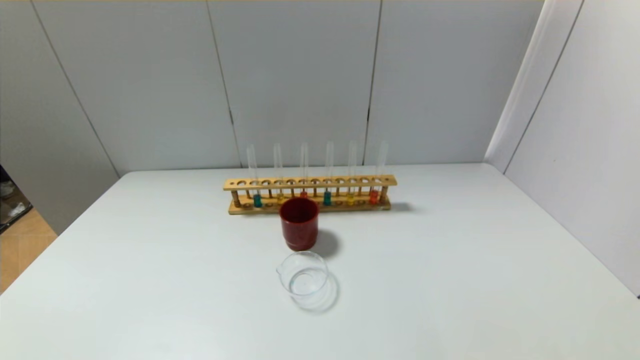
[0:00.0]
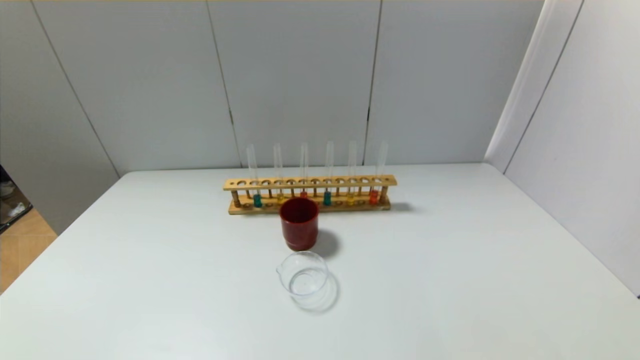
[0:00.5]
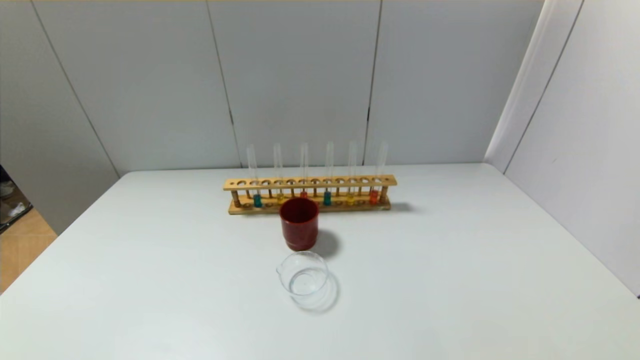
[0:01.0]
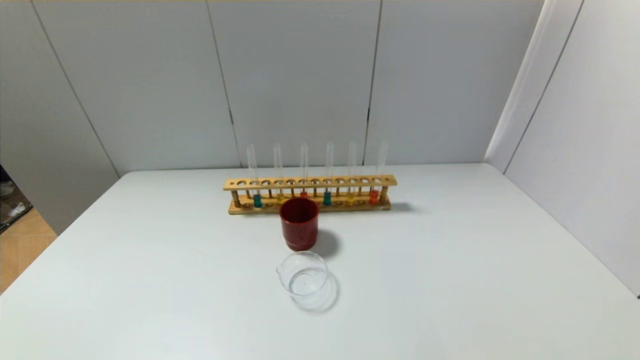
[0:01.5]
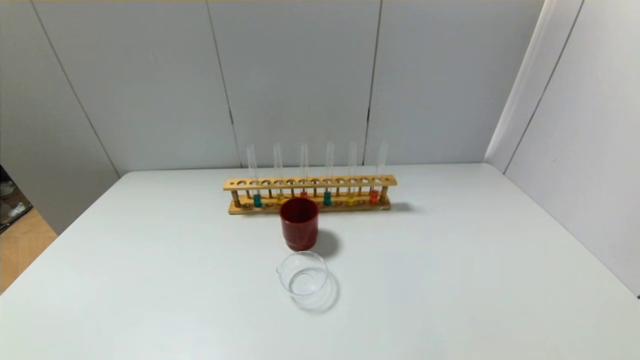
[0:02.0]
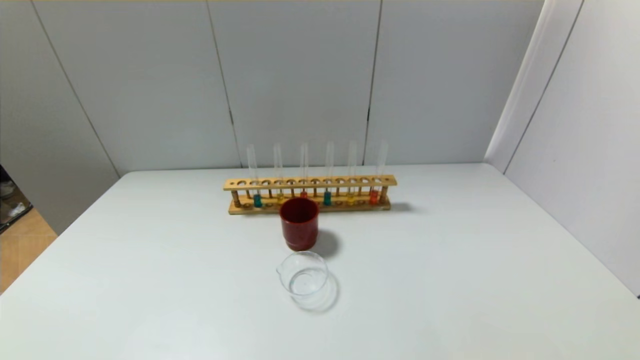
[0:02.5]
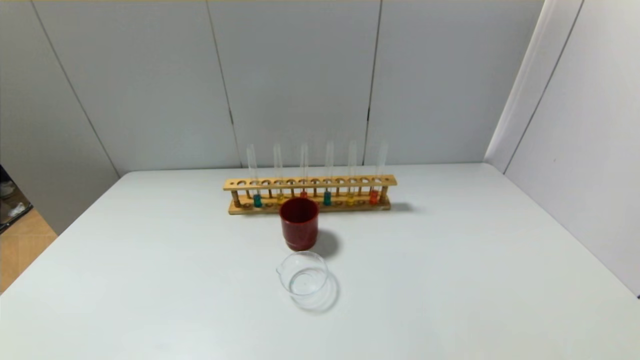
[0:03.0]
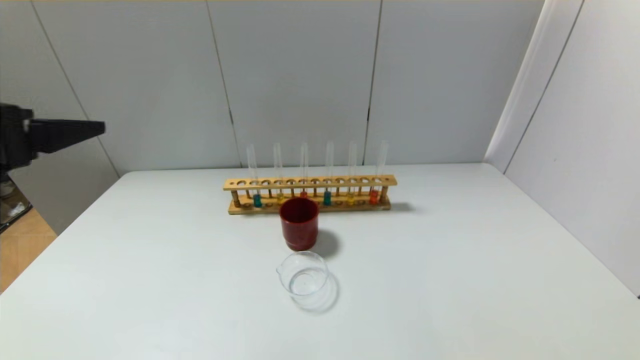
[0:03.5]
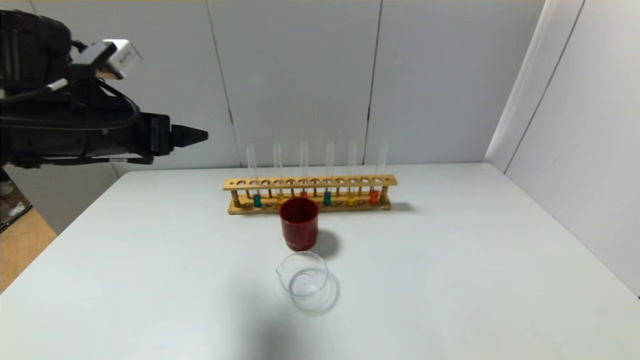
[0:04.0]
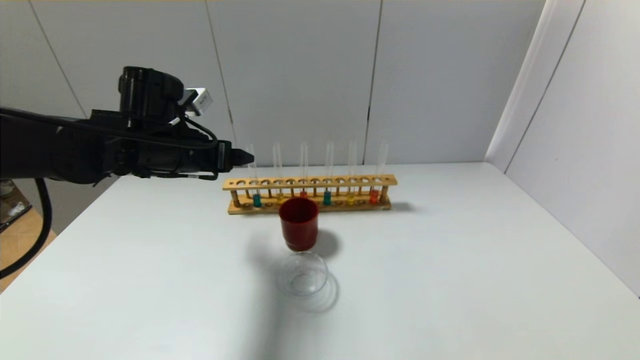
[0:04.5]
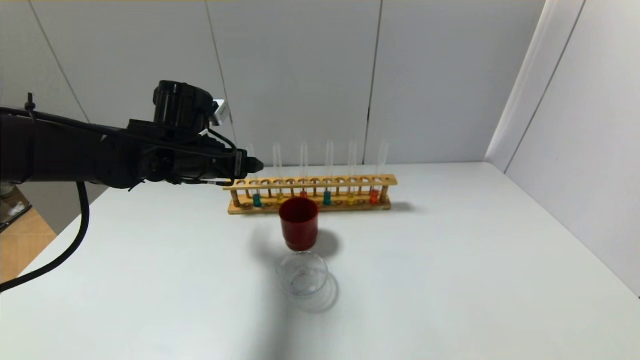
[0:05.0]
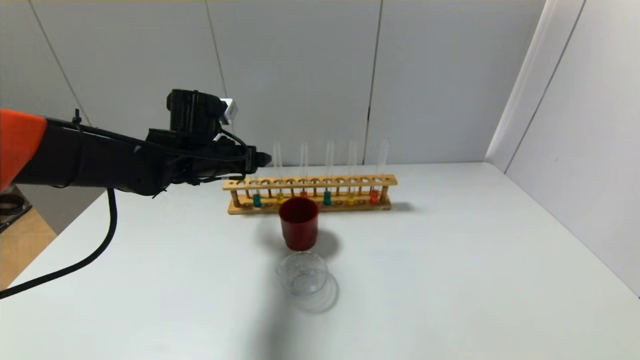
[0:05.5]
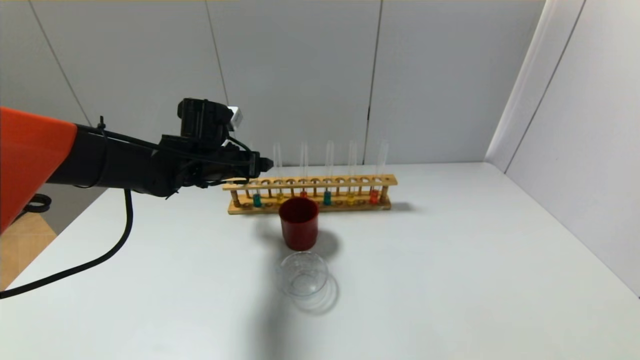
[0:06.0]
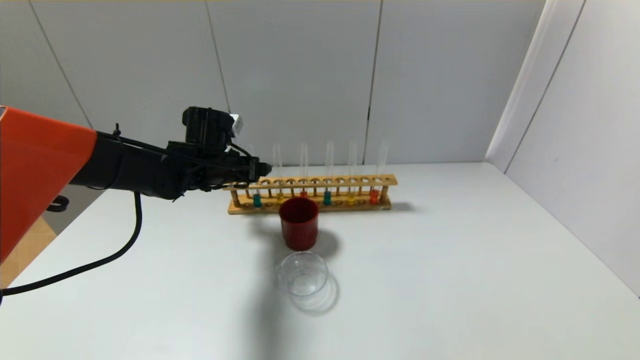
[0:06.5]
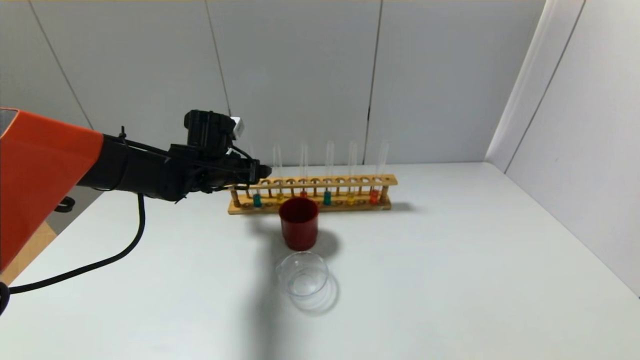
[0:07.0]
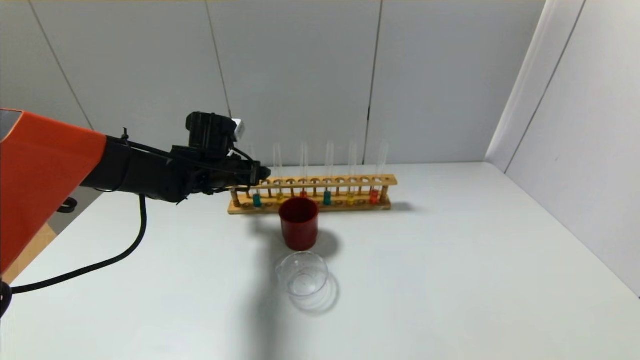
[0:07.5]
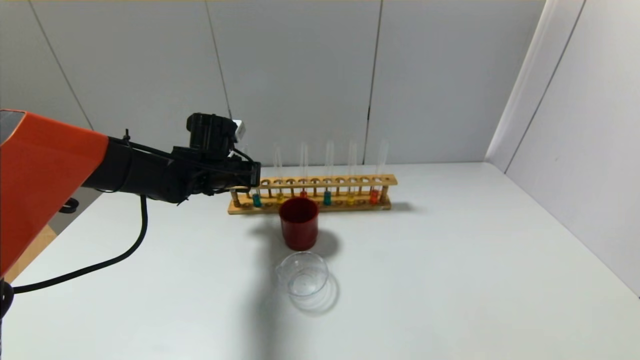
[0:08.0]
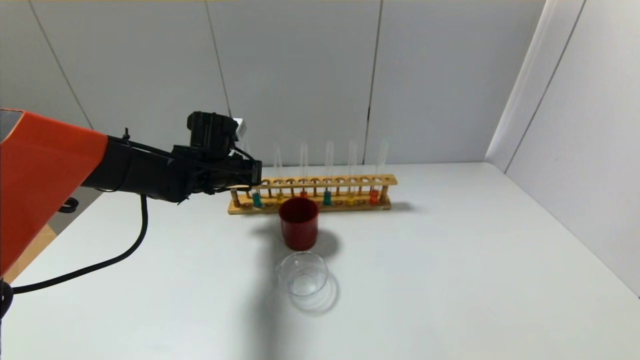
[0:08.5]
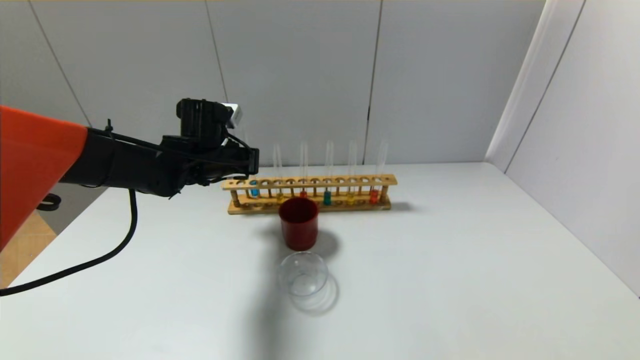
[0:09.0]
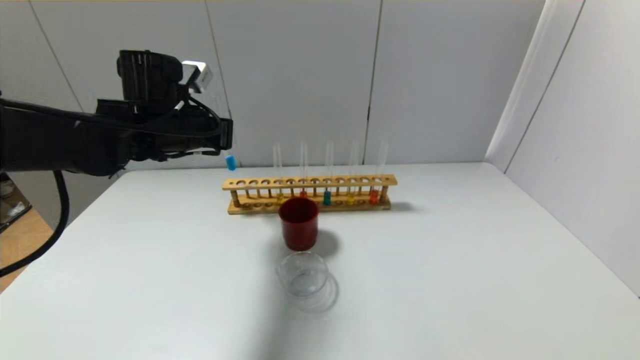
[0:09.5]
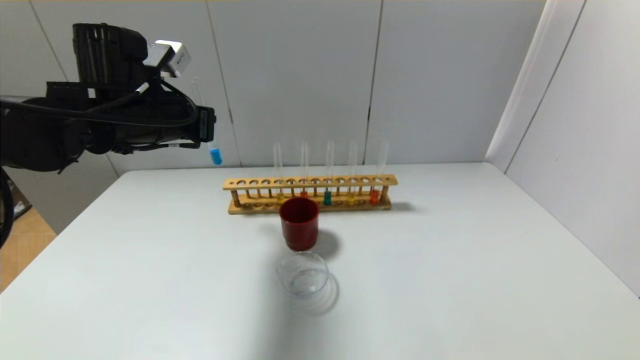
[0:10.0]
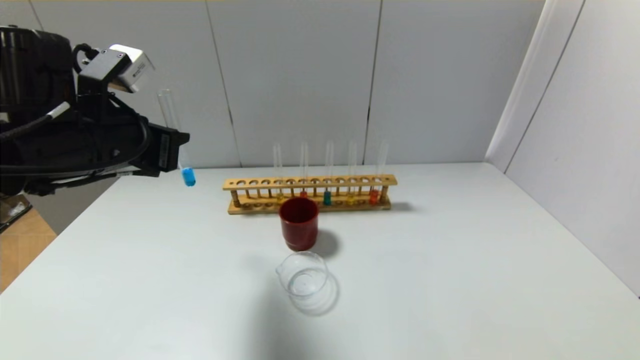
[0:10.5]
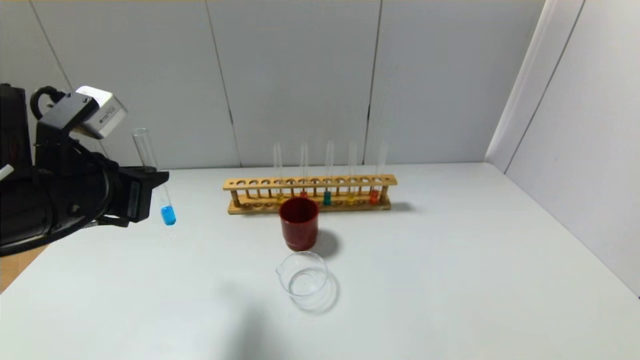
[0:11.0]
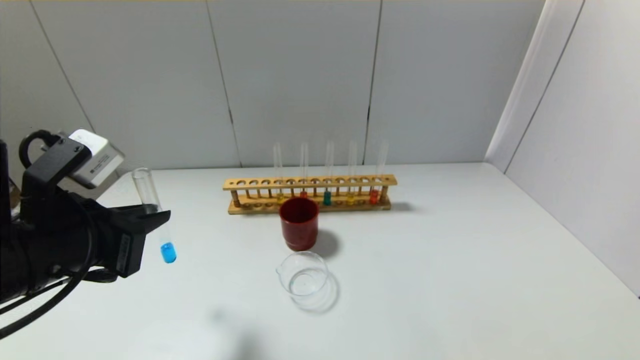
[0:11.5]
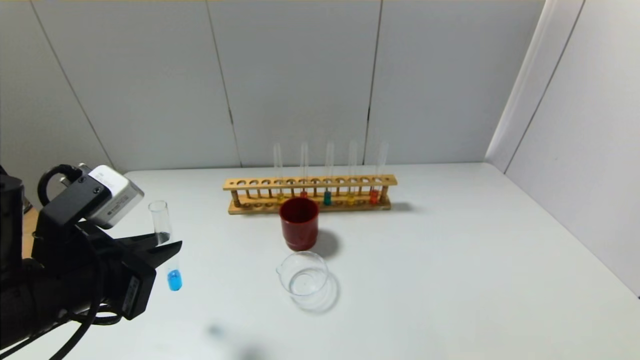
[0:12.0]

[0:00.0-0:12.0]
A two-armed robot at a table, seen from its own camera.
Step, 0:00.0 to 0:08.0: Grasp the blue reagent with the left gripper.
0:02.0 to 0:04.0: The left gripper goes about 35 cm forward and upward.
0:04.0 to 0:06.0: The left gripper shifts approximately 20 cm forward, downward and to the right.
0:06.0 to 0:08.0: The left gripper closes.
0:08.0 to 0:10.0: The left gripper travels upward and backward by some 15 cm.
0:10.0 to 0:12.0: The left gripper heads backward and downward, covering about 20 cm.

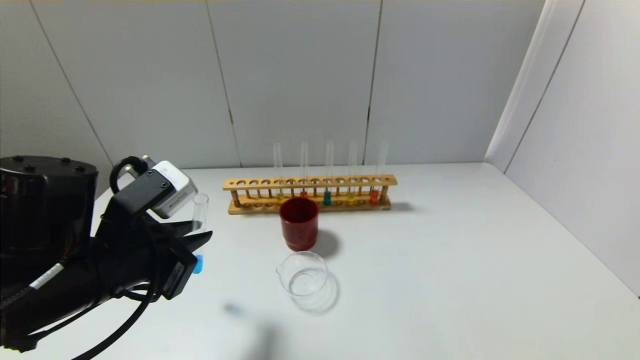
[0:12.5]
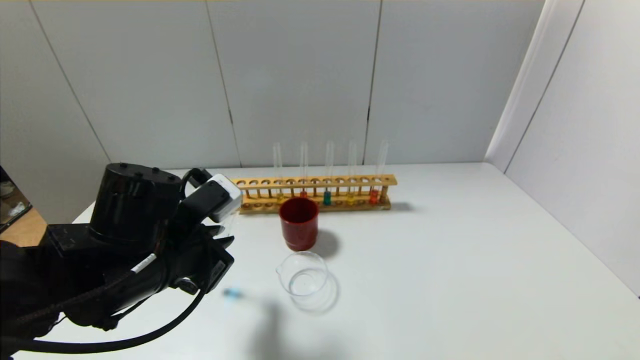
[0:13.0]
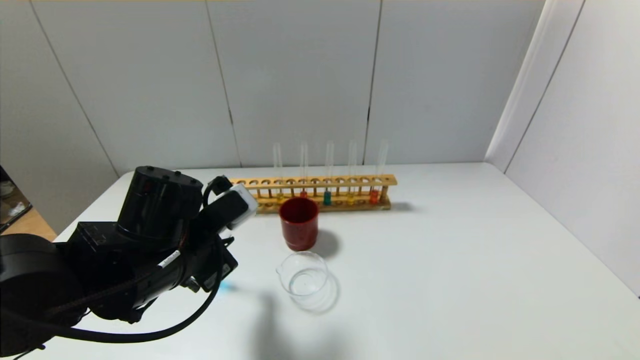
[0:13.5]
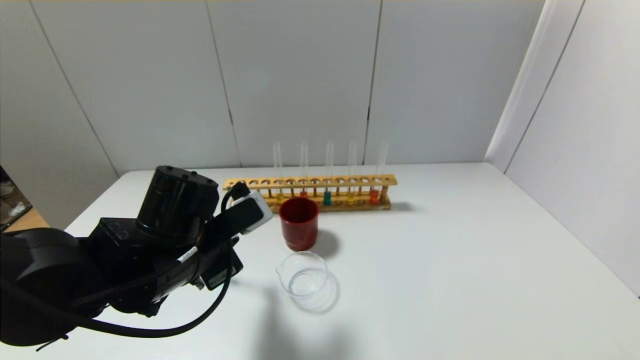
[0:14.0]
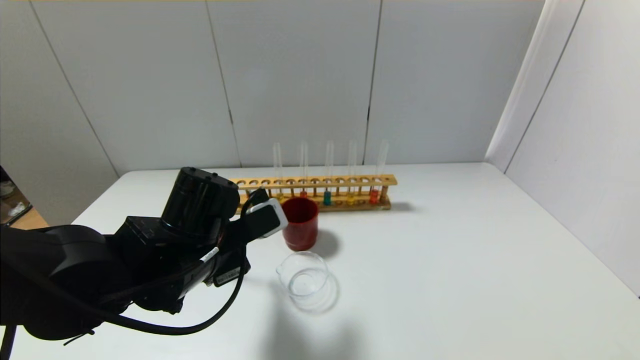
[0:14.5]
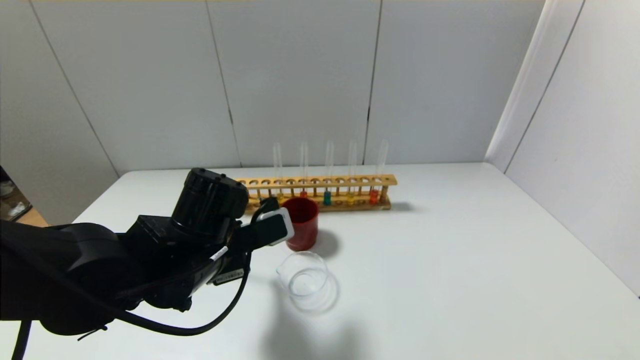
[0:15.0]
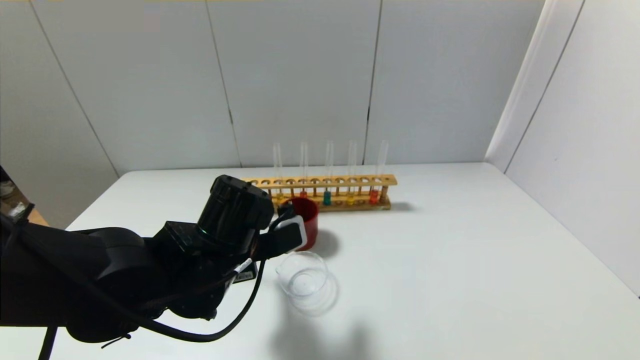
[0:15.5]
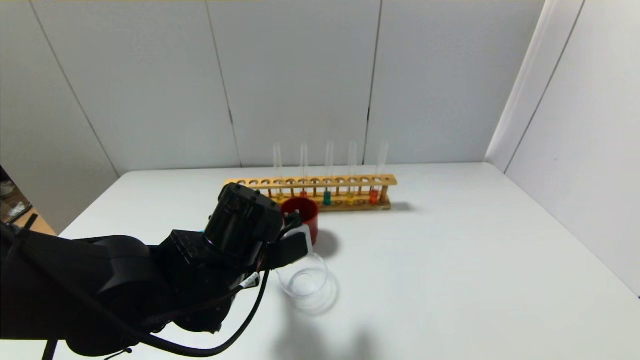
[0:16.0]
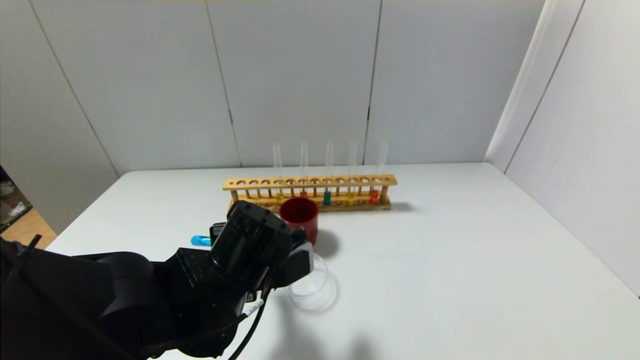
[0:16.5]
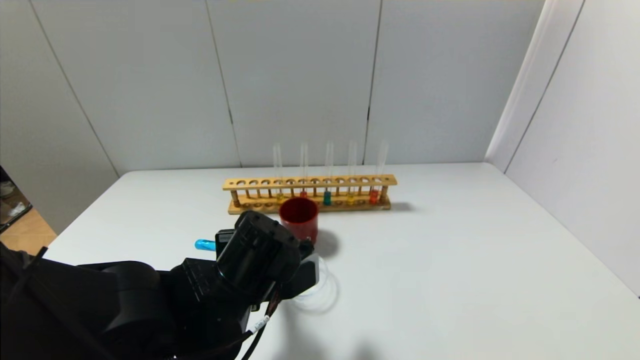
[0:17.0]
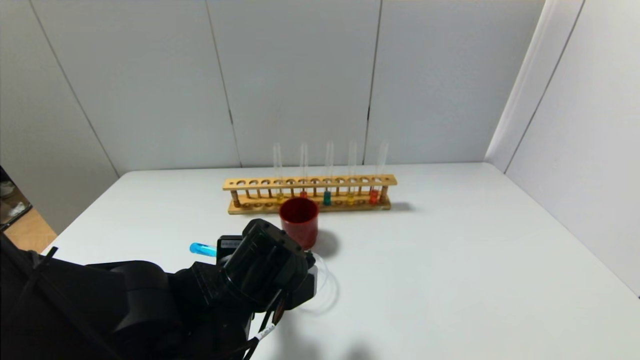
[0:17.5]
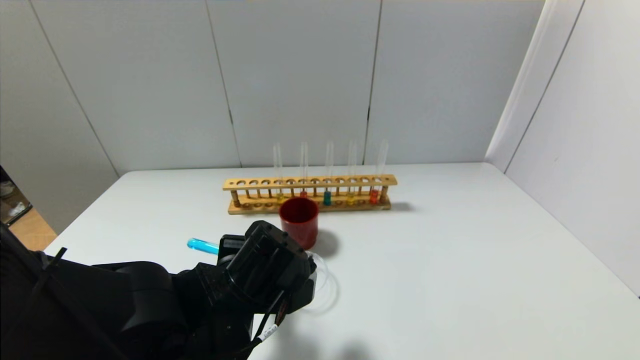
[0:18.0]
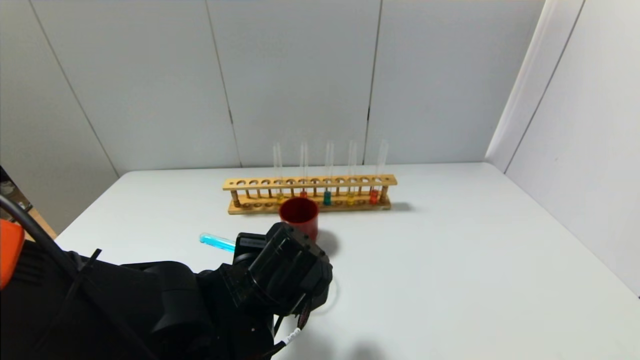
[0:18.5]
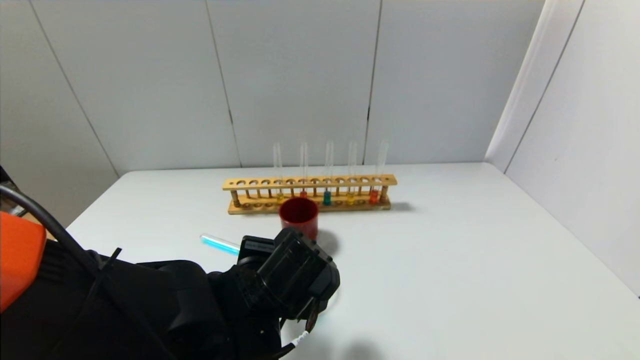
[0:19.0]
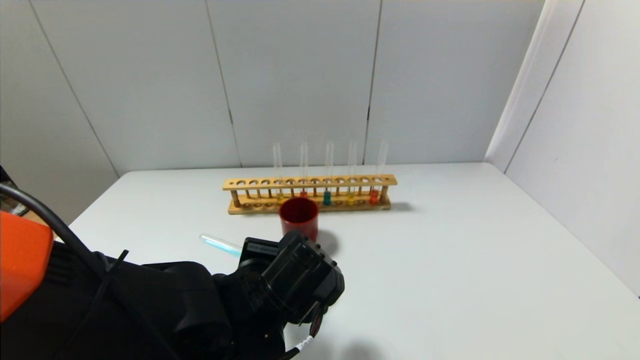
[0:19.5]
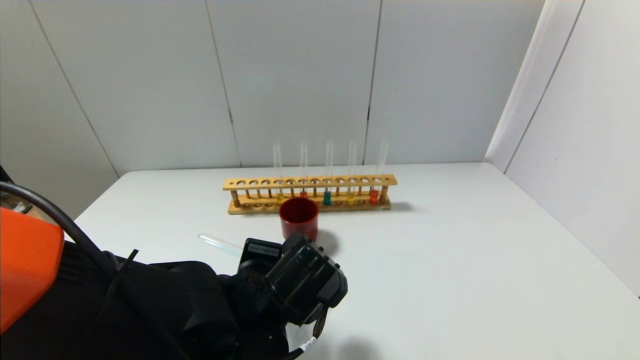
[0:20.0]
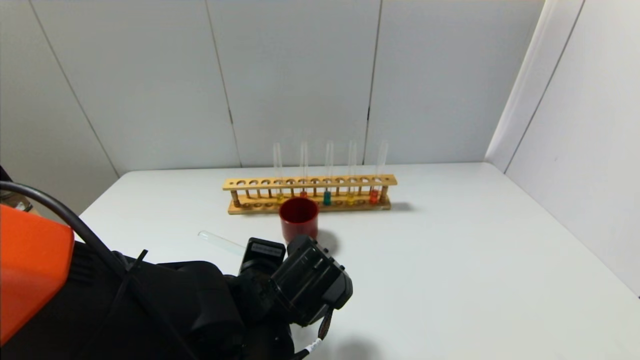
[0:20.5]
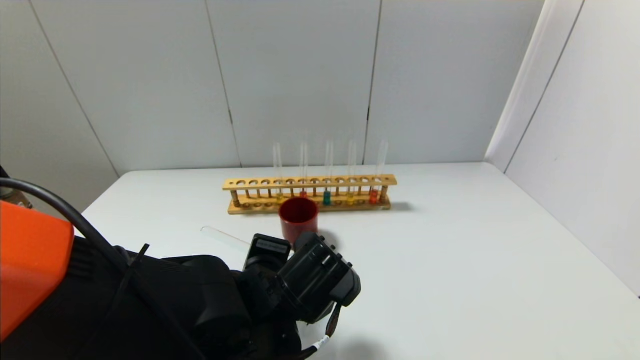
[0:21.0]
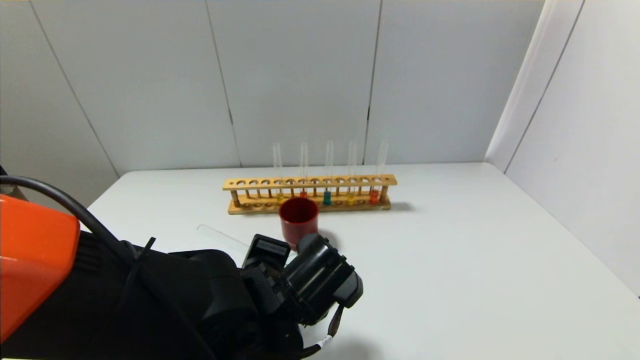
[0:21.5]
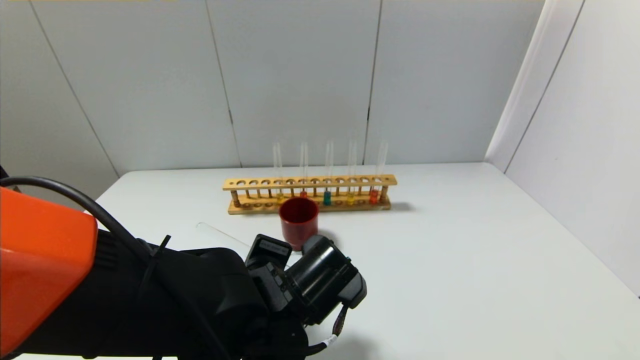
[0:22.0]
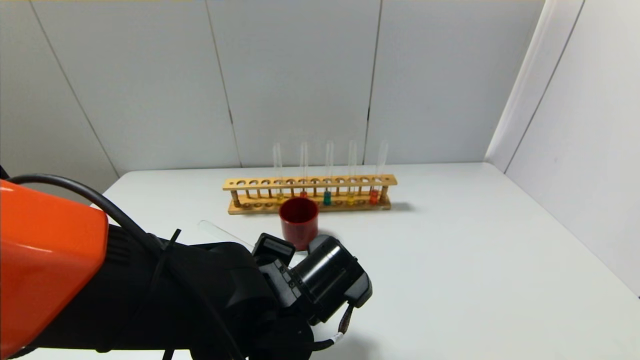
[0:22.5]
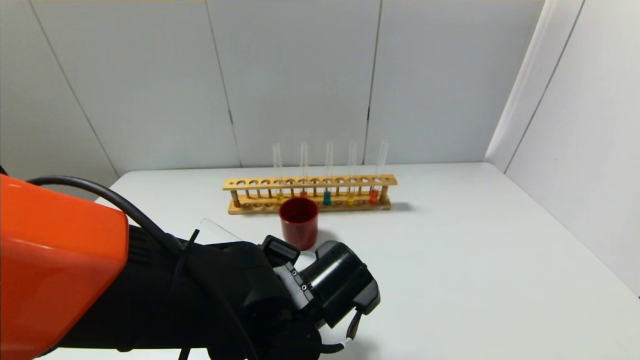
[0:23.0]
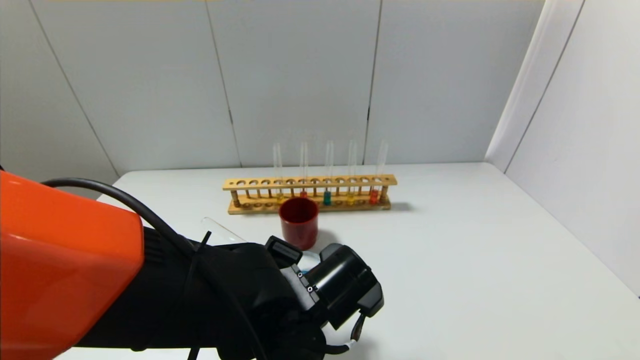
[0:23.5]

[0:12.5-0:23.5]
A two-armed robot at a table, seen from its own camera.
0:12.5 to 0:14.5: The left gripper heads to the right and forward, covering roughly 10 cm.
0:14.5 to 0:16.0: The grippers stay close to where they were, moving slightly.
0:16.0 to 0:18.0: There are only small adjustments of the grippers.
0:18.0 to 0:21.5: The grippers move only a little.
0:21.5 to 0:23.5: There are only small adjustments of the grippers.
